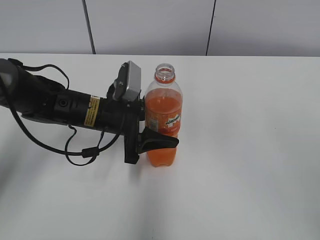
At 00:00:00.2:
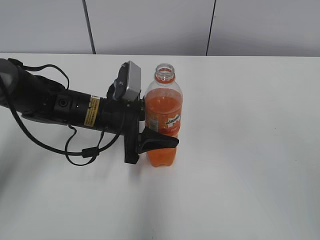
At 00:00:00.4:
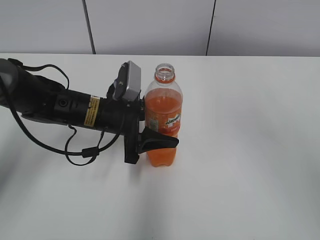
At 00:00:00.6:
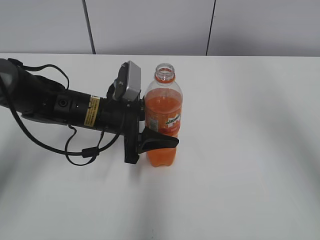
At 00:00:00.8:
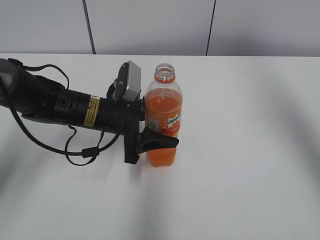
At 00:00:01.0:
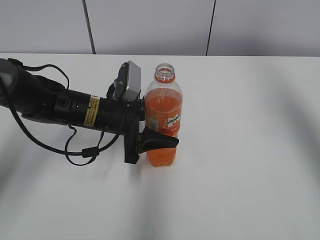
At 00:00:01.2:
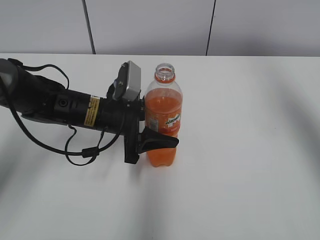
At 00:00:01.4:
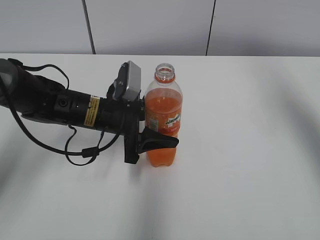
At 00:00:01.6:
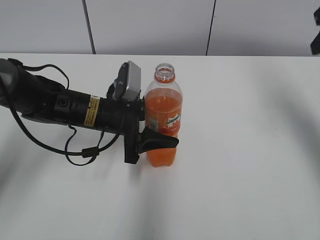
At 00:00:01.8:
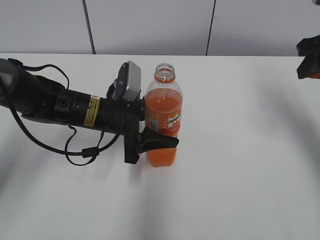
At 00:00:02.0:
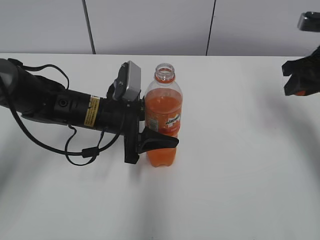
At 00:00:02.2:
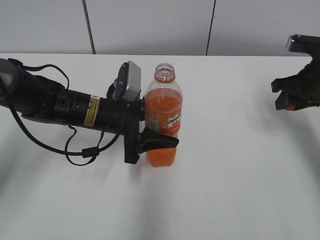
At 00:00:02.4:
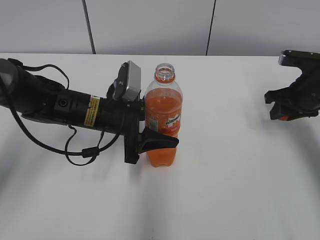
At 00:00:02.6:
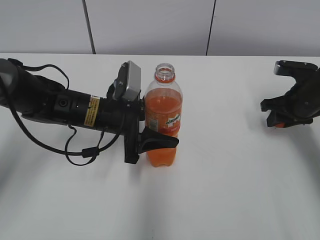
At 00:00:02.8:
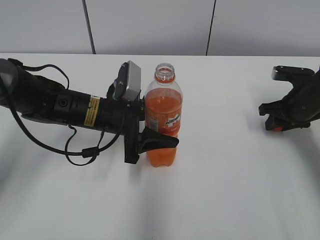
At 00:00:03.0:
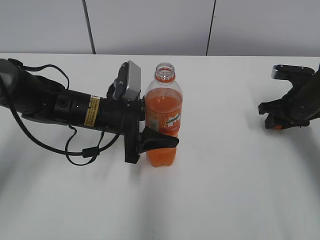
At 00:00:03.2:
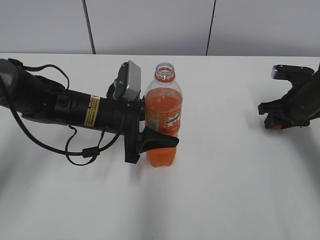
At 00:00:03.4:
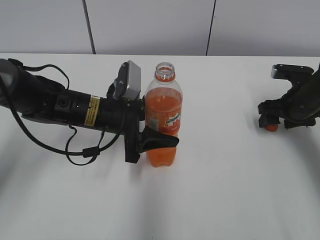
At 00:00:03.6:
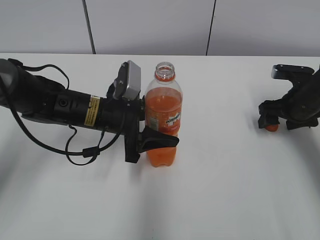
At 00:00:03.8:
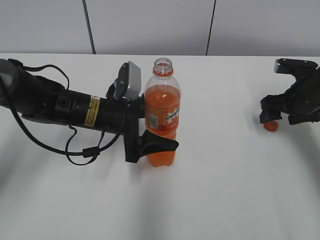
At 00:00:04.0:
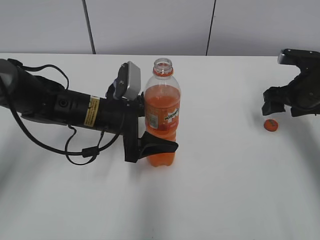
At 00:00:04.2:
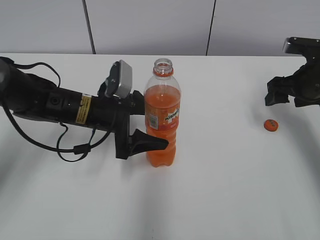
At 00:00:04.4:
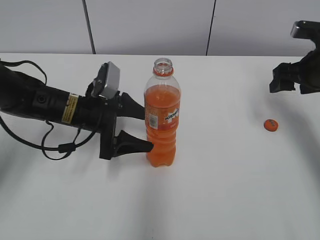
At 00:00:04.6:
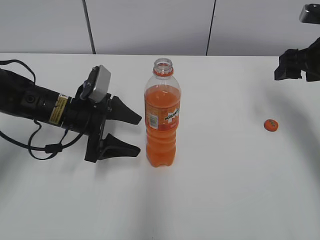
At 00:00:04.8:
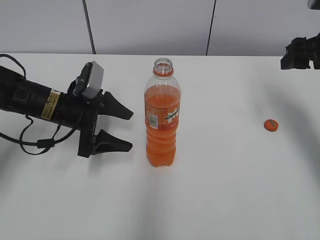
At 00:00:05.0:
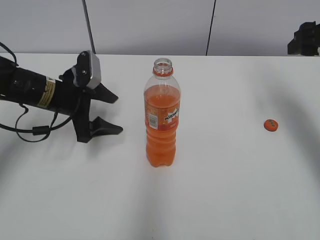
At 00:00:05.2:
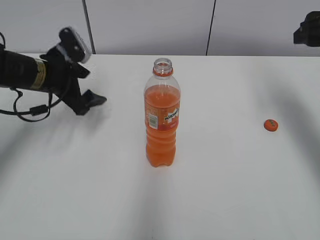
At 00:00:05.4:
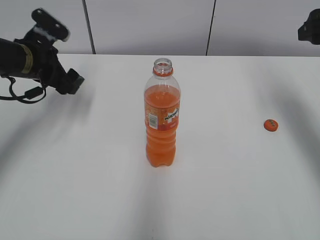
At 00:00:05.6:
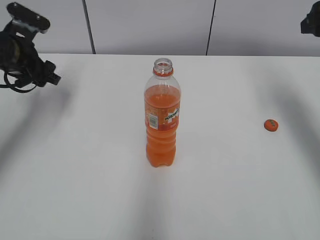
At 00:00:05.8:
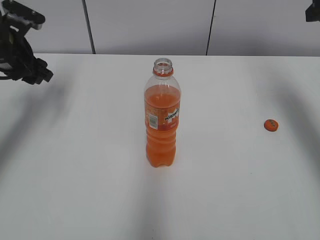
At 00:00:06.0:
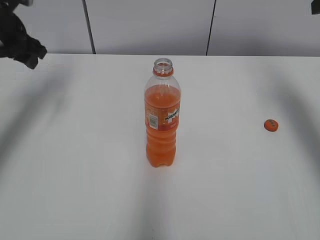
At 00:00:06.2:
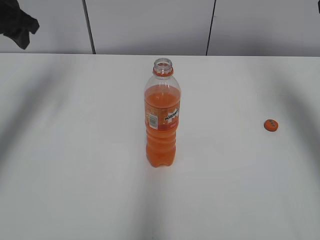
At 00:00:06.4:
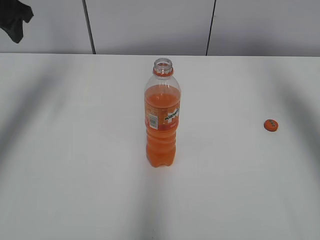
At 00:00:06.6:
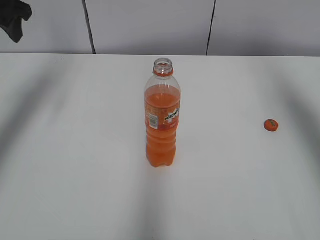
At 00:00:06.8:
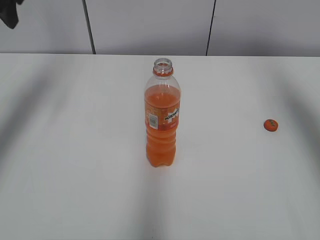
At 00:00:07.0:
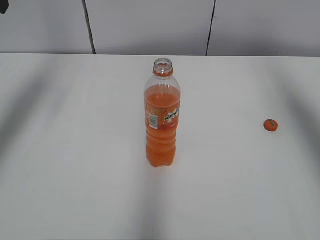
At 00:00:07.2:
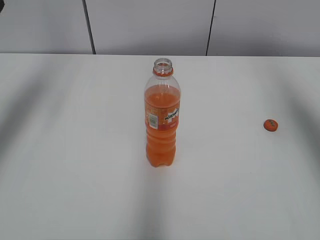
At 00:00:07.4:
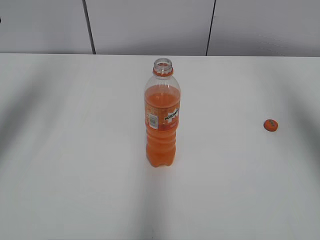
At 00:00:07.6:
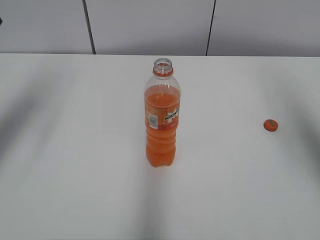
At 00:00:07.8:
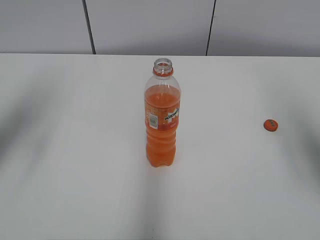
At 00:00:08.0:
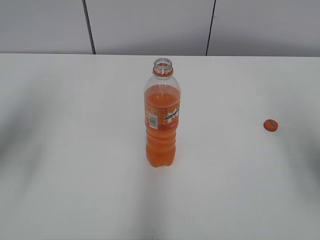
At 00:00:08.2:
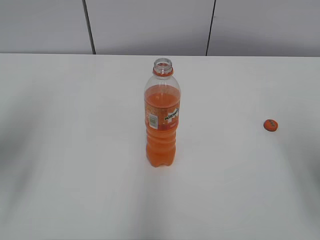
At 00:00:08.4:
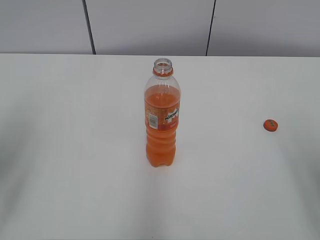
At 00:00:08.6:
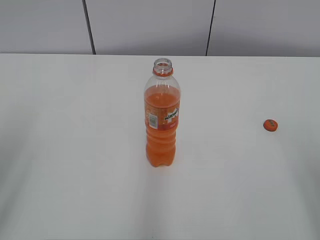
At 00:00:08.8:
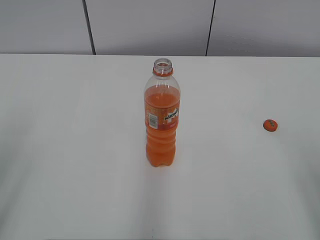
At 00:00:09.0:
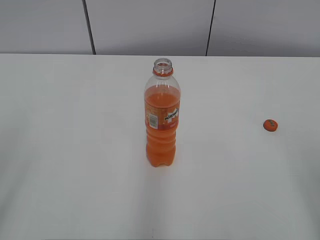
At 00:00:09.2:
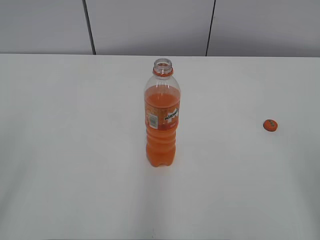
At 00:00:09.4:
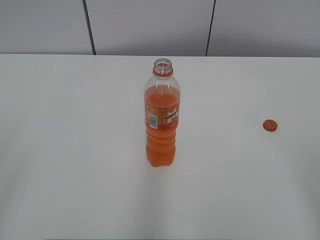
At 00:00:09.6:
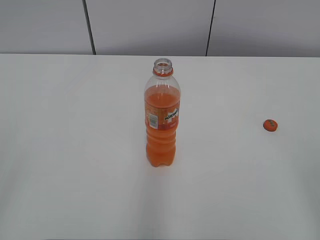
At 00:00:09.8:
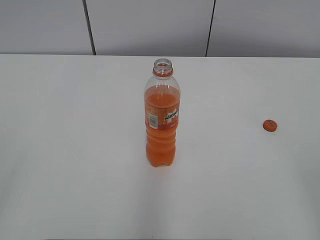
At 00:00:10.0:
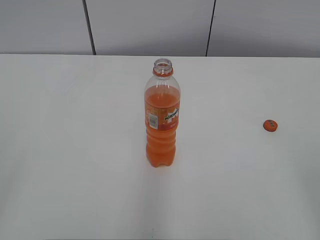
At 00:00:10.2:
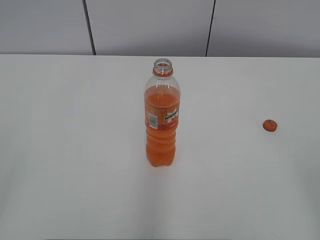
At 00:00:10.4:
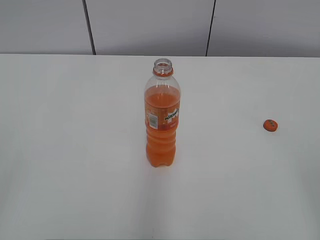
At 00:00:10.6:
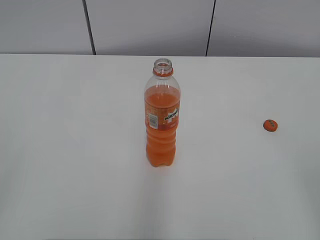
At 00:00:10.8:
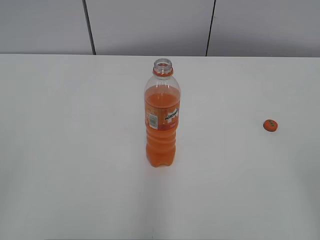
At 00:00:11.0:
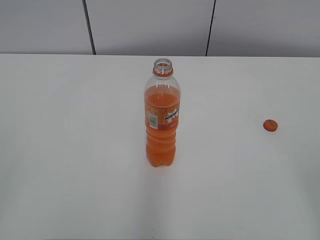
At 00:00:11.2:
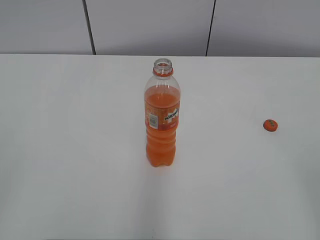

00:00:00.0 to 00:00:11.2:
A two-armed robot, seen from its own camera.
Step, 00:00:00.0 to 00:00:03.4: Place the bottle cap on the right.
00:00:00.0 to 00:00:01.6: The right gripper heads to the right and downward, covering roughly 20 cm.
00:00:01.6 to 00:00:03.2: The right gripper travels downward by roughly 20 cm.
00:00:03.2 to 00:00:04.8: The right gripper heads upward, covering about 15 cm, and opens up, while the left gripper travels to the left by roughly 10 cm, and opens.
00:00:04.8 to 00:00:06.4: The left gripper heads upward and to the left, covering some 25 cm, and closes its fingers. The right gripper goes about 15 cm upward.
00:00:06.4 to 00:00:08.0: The left gripper heads backward, covering approximately 15 cm. The right gripper is displaced backward and downward by some 20 cm.
00:00:08.0 to 00:00:09.6: The left gripper goes some 25 cm backward.

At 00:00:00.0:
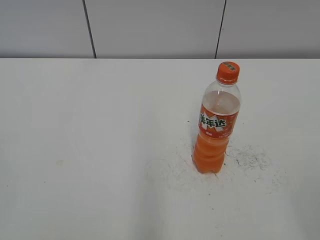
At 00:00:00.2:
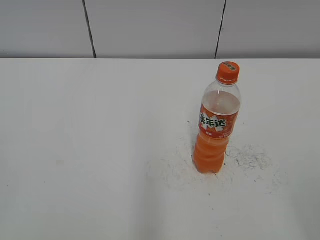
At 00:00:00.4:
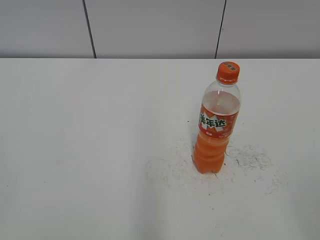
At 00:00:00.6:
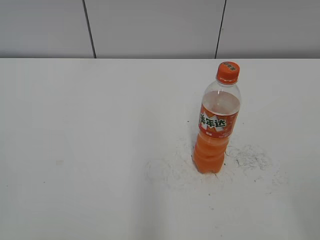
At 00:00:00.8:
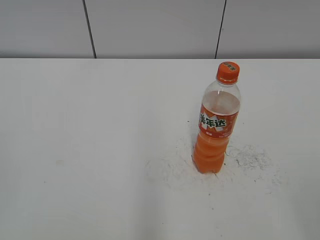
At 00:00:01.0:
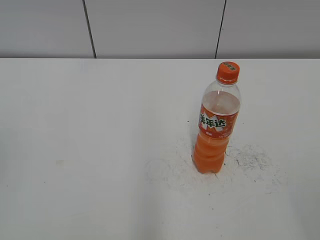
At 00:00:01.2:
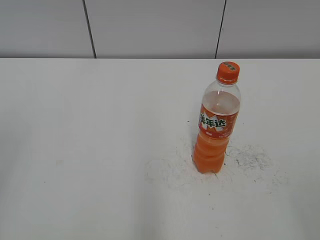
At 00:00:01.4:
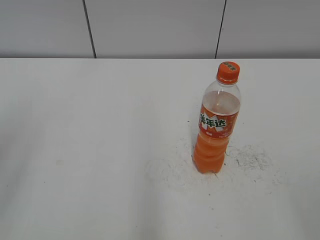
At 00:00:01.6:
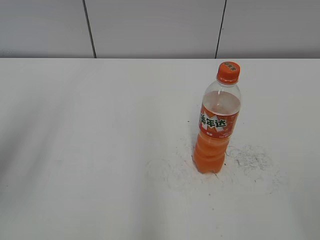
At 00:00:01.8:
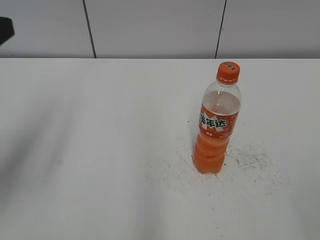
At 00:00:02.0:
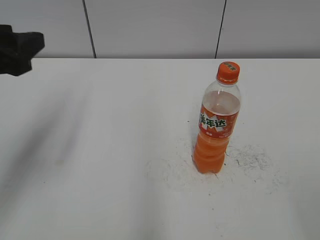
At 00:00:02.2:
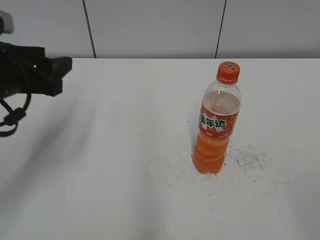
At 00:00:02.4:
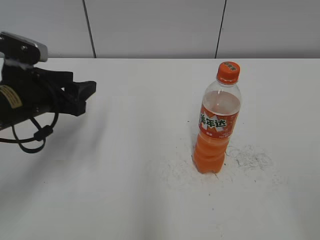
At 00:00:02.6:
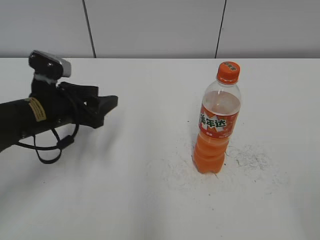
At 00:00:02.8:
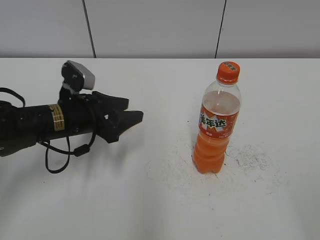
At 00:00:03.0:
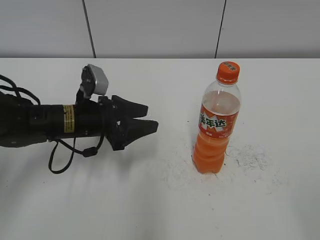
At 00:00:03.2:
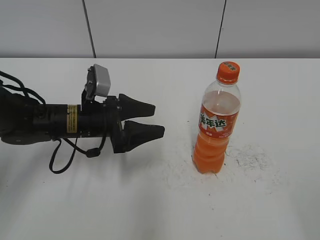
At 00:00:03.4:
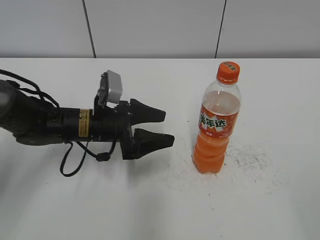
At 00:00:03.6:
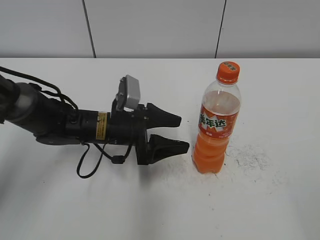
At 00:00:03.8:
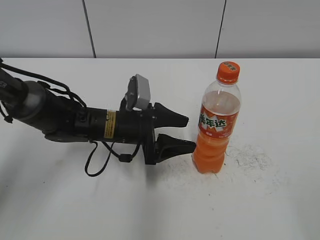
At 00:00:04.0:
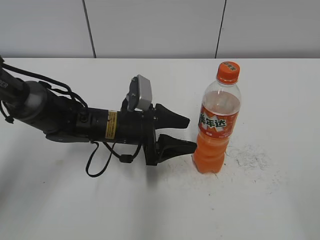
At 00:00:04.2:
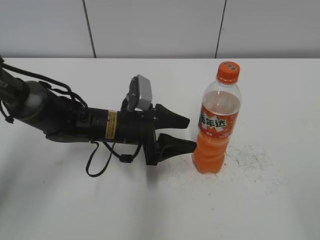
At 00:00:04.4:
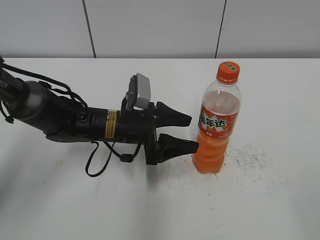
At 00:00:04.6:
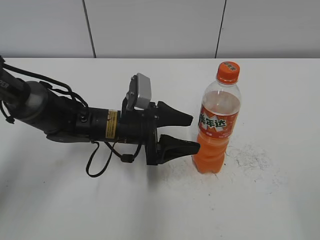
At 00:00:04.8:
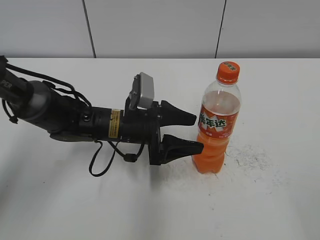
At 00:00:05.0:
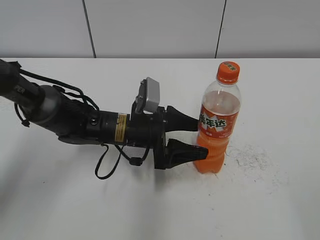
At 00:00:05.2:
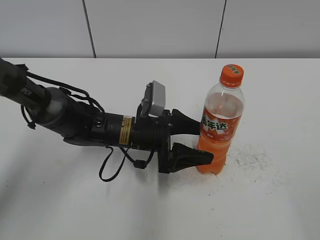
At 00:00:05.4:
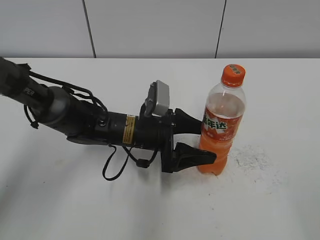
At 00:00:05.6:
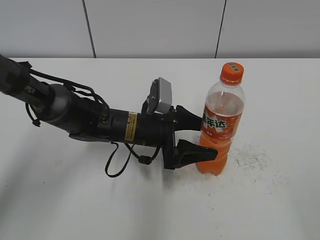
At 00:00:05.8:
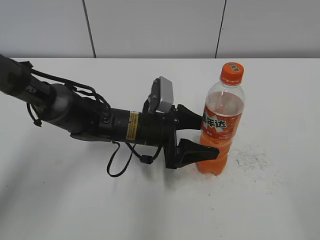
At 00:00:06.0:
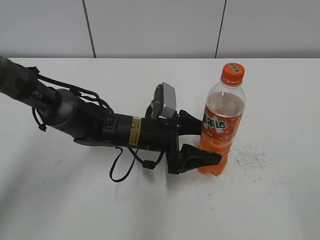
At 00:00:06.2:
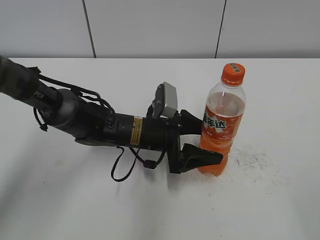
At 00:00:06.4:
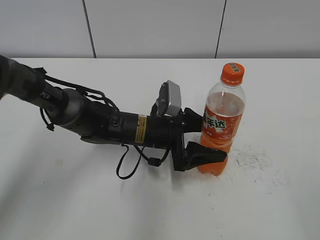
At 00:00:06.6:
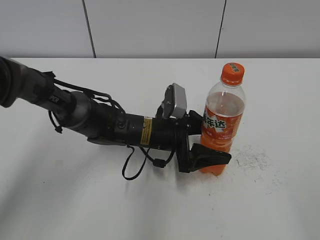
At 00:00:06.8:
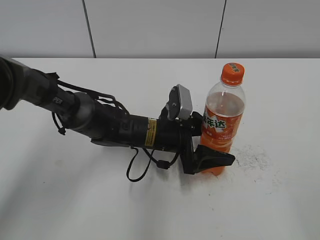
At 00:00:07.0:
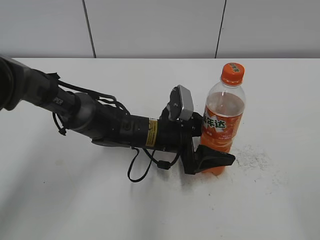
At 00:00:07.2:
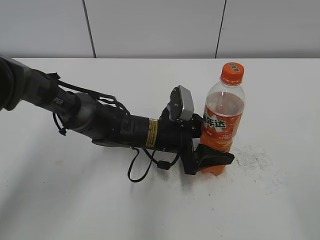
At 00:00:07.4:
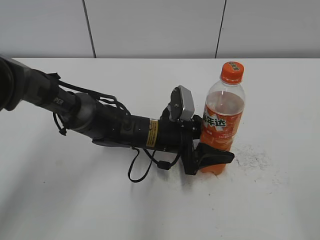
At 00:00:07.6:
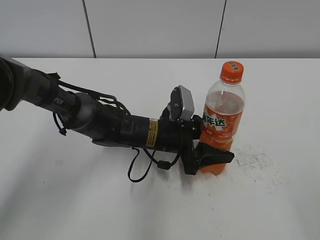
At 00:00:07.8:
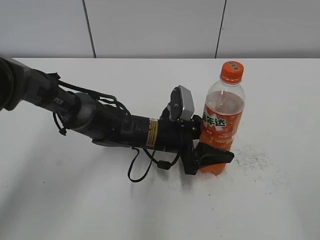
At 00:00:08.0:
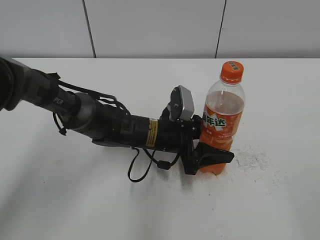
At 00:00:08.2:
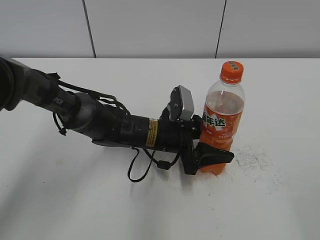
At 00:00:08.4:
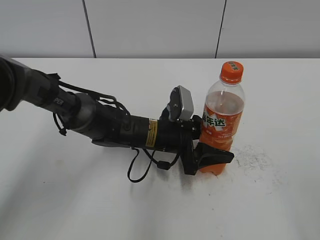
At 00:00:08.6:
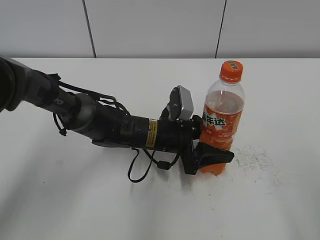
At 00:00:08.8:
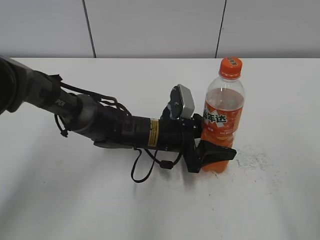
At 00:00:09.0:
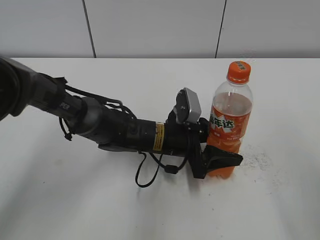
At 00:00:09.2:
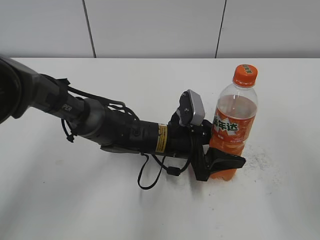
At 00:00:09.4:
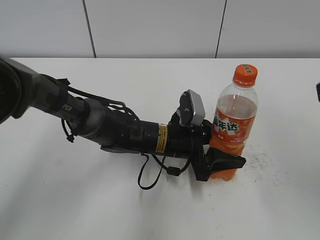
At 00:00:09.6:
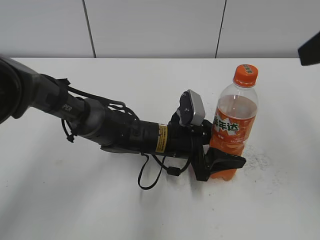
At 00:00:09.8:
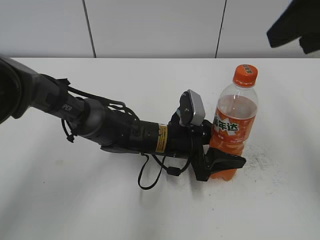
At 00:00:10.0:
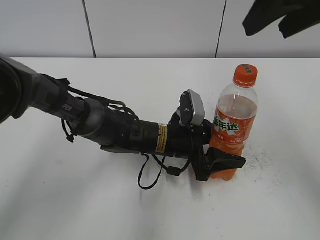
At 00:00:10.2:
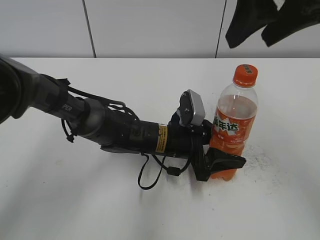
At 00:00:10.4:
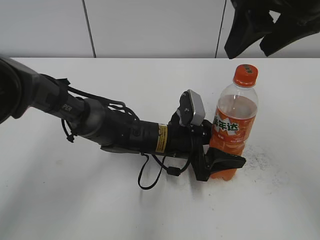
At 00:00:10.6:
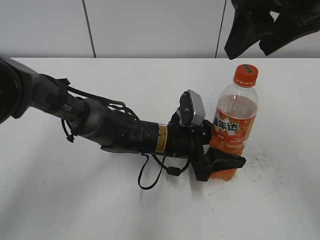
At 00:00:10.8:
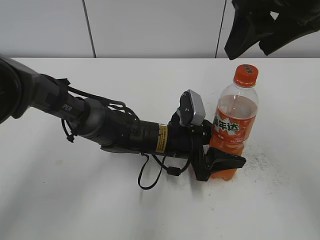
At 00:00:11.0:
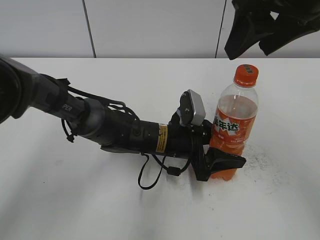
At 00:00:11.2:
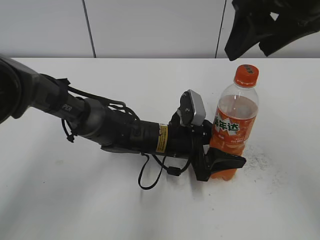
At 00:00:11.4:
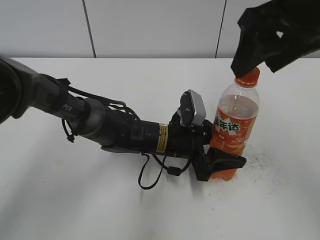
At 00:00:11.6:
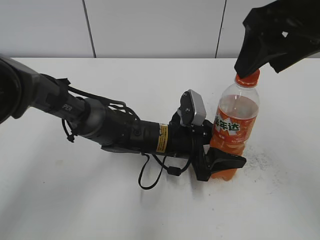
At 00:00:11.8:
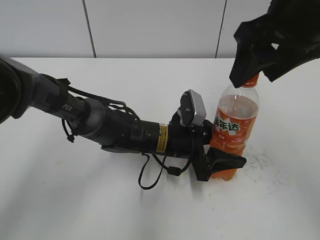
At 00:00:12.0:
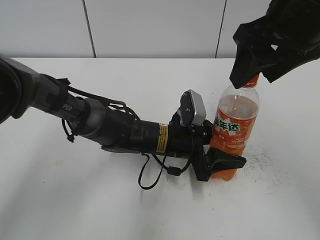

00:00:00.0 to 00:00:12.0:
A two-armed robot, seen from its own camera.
Step, 00:00:00.0 to 00:00:07.4: Grab the Mirinda with the left hand.
00:00:01.6 to 00:00:03.0: The left gripper heads downward, forward and to the right, covering some 30 cm.
00:00:03.0 to 00:00:04.4: The left gripper shifts about 5 cm to the right.
00:00:04.4 to 00:00:06.0: The grippers move only a little.
00:00:06.0 to 00:00:07.6: The left gripper closes its fingers.
00:00:07.6 to 00:00:09.0: The right gripper heads forward, covering approximately 10 cm.
00:00:09.0 to 00:00:10.4: The right gripper goes some 20 cm forward and to the left.
00:00:10.4 to 00:00:12.0: The grippers stay close to where they were, moving slightly.
